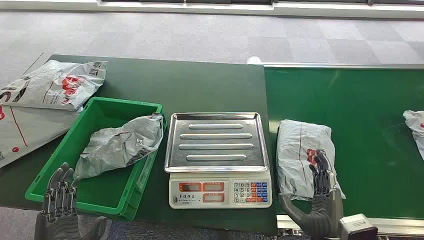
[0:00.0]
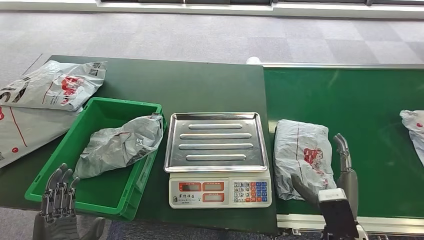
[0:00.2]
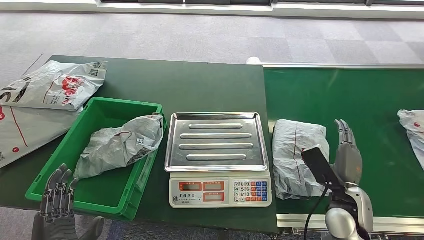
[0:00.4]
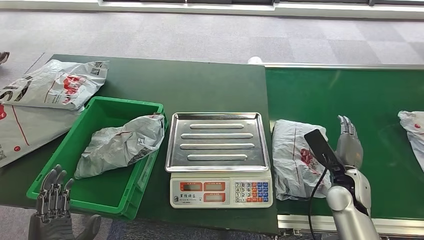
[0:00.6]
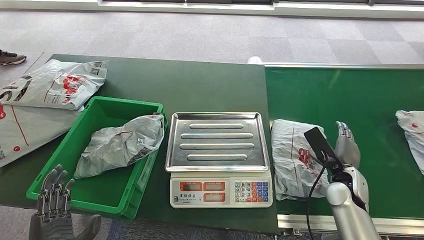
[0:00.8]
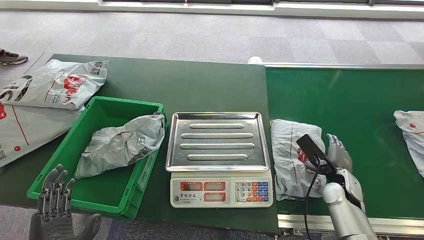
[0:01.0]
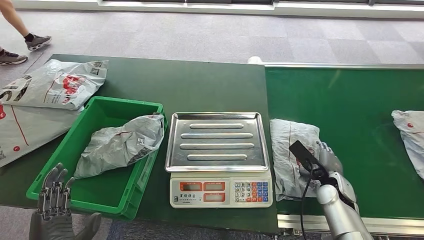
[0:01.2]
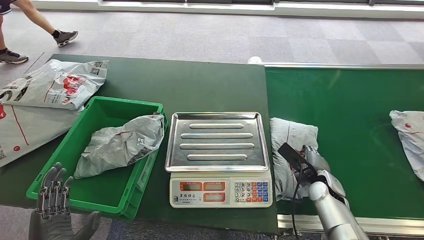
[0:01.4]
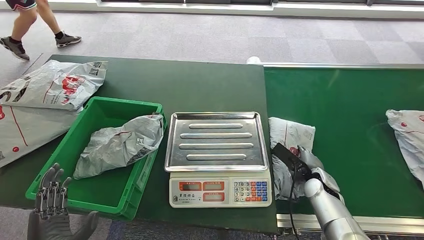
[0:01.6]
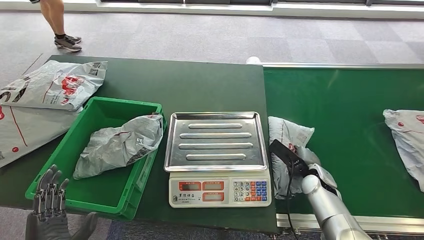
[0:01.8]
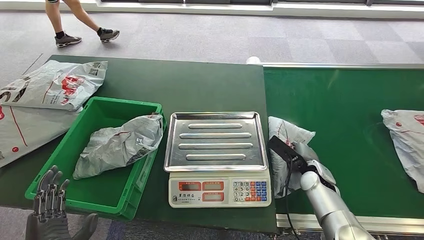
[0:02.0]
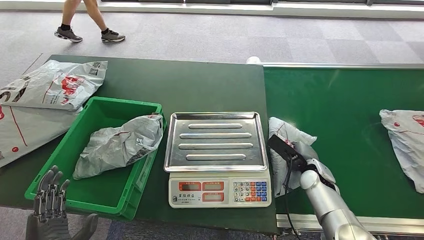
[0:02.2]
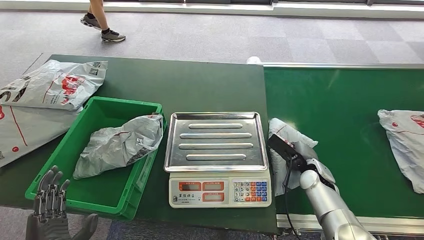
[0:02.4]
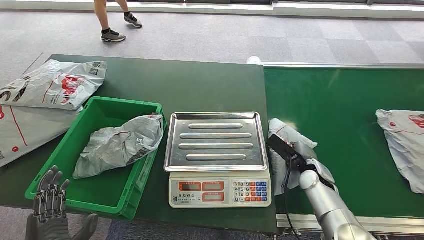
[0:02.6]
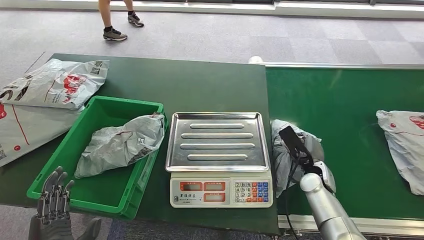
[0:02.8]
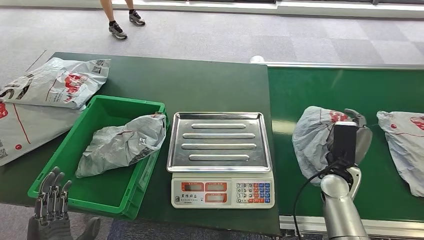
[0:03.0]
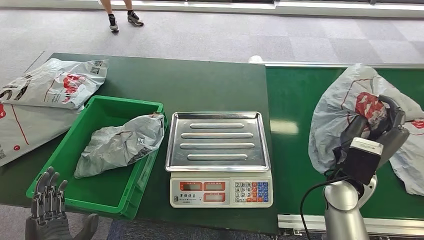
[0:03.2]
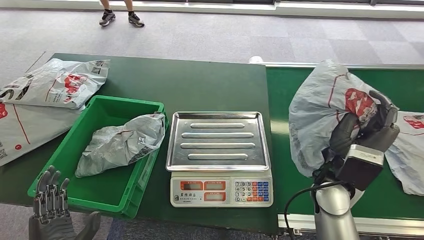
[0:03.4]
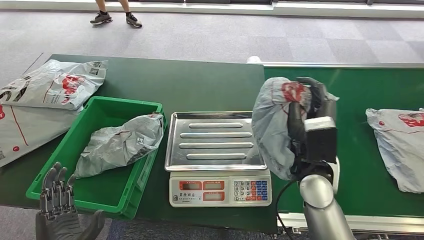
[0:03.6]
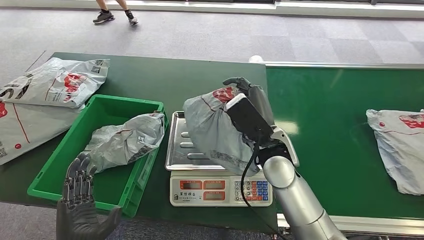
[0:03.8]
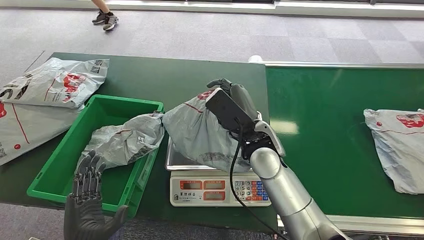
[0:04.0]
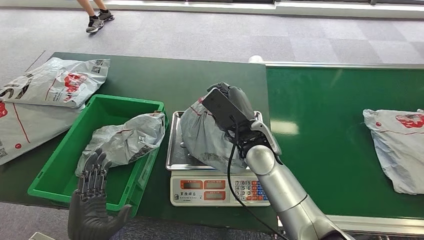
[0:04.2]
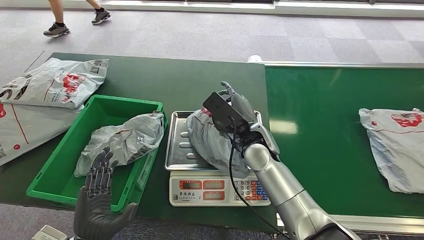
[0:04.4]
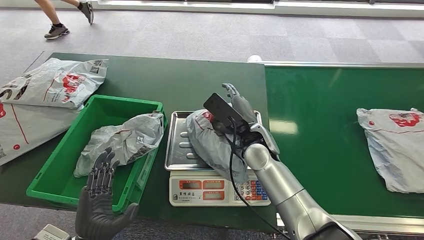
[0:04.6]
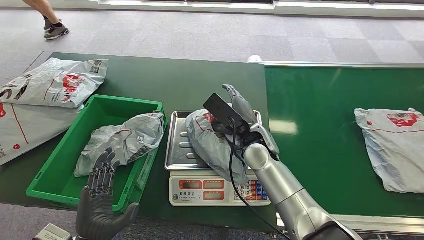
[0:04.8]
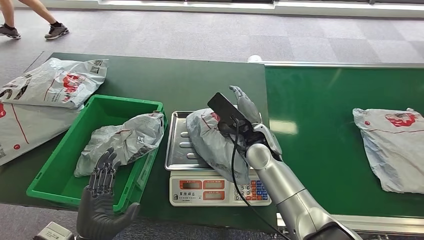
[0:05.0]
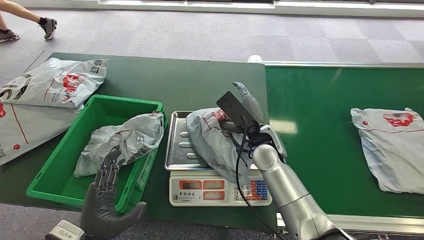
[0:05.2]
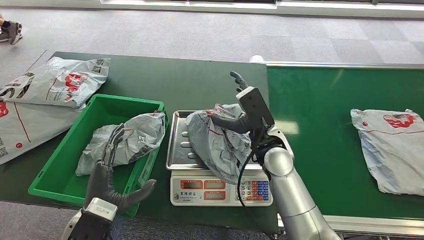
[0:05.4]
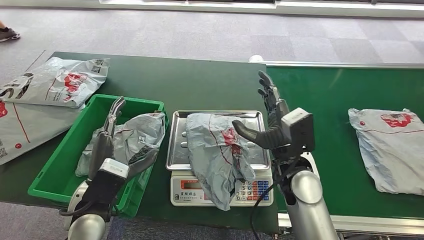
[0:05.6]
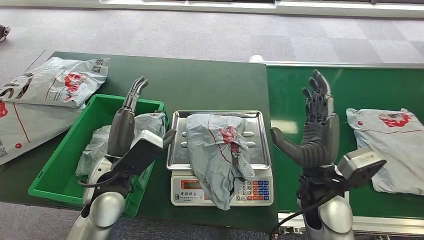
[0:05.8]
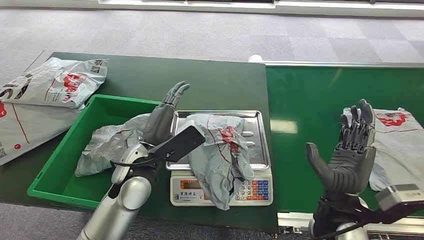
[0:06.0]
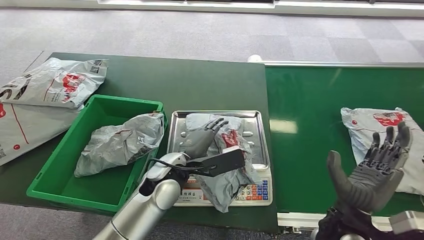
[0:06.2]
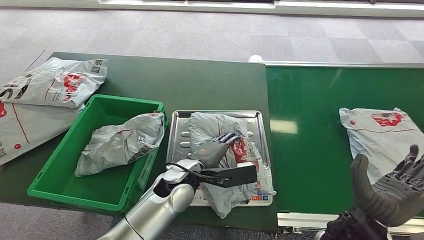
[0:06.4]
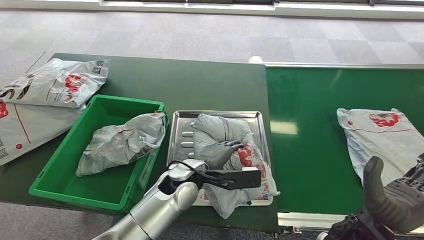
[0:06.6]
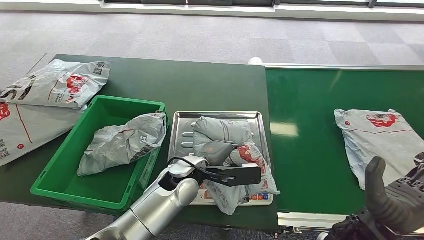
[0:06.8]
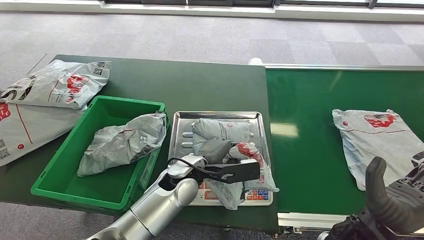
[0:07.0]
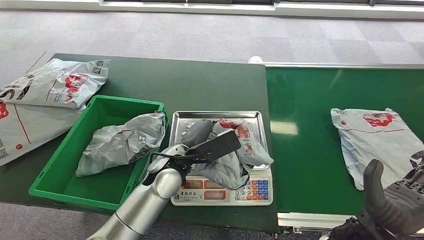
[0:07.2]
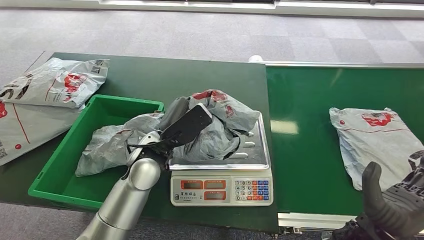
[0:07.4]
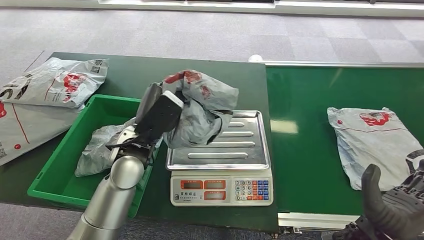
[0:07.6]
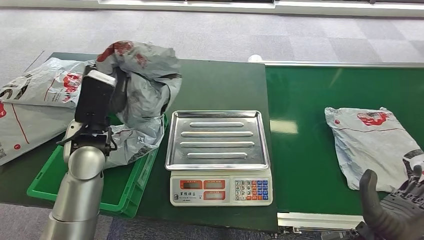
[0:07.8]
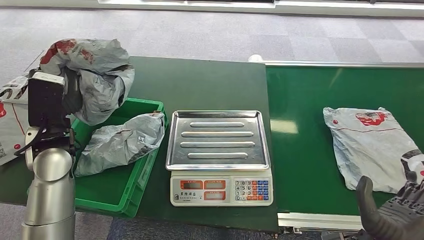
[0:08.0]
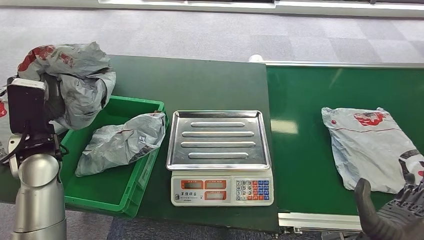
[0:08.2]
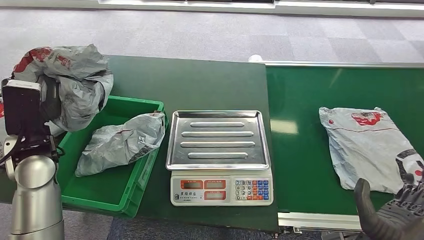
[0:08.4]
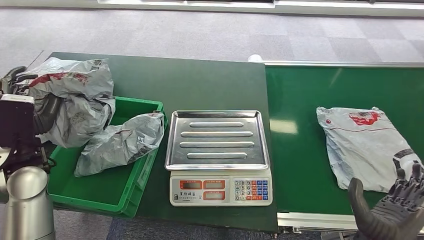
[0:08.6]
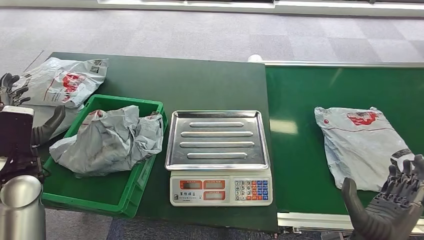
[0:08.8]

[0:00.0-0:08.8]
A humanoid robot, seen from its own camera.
Step, 0:00.0 to 0:03.6: Pick up the package from the conveyor belt.
Step, 0:03.8 to 0:06.2: Place the package onto the inbound machine.
Step, 0:06.4 to 0:07.6: Pick up the package from the inbound machine.
Step, 0:07.8 to 0:08.8: Place the package into the parcel locker.
